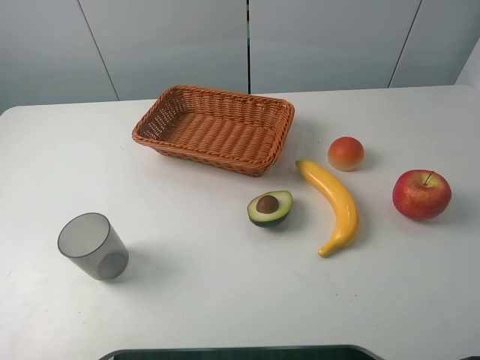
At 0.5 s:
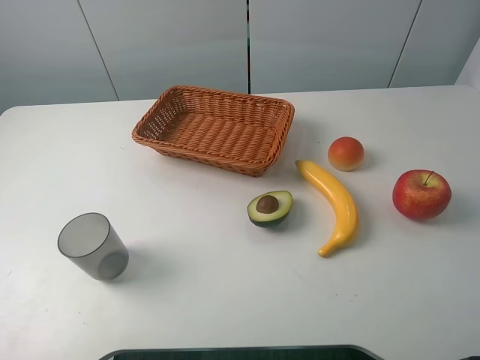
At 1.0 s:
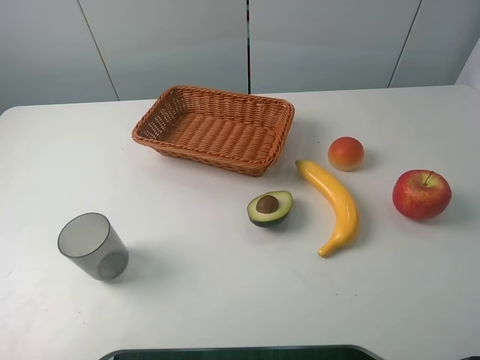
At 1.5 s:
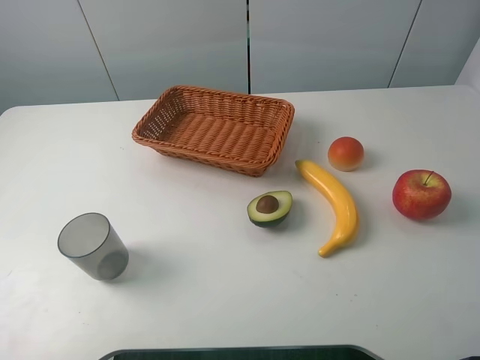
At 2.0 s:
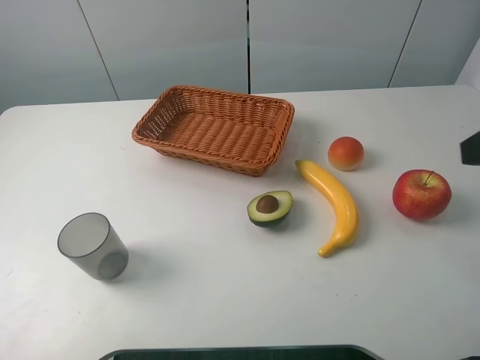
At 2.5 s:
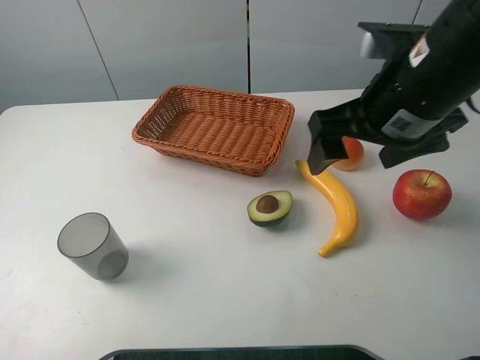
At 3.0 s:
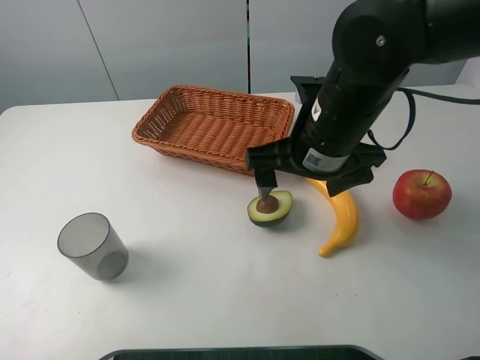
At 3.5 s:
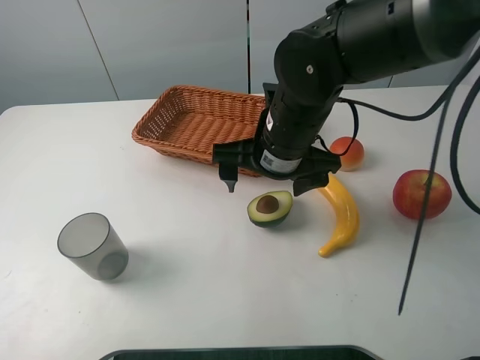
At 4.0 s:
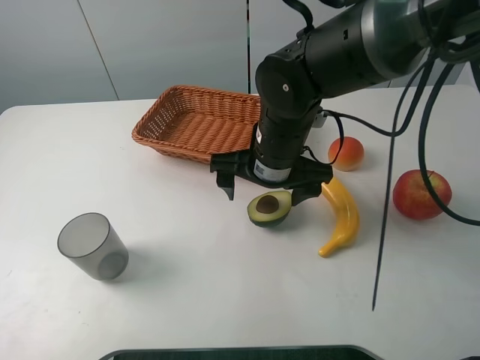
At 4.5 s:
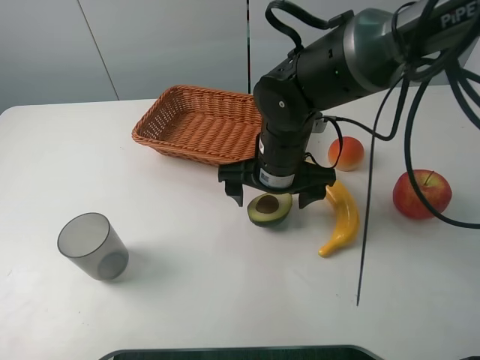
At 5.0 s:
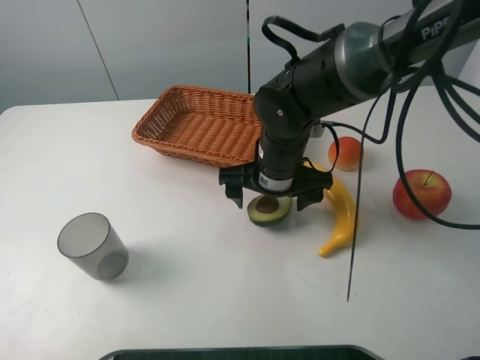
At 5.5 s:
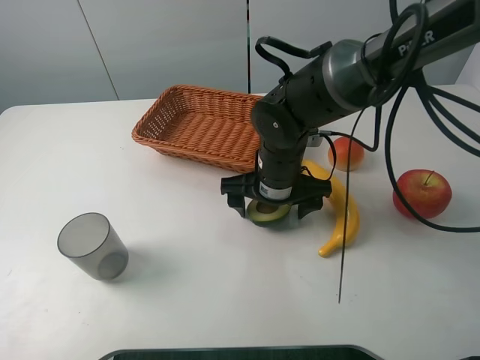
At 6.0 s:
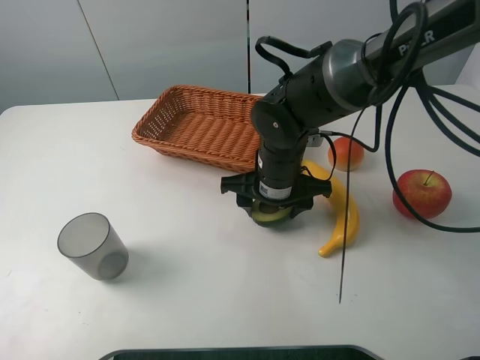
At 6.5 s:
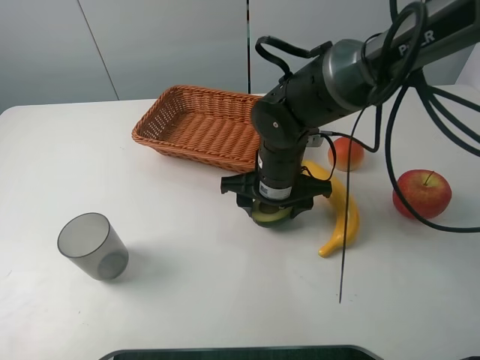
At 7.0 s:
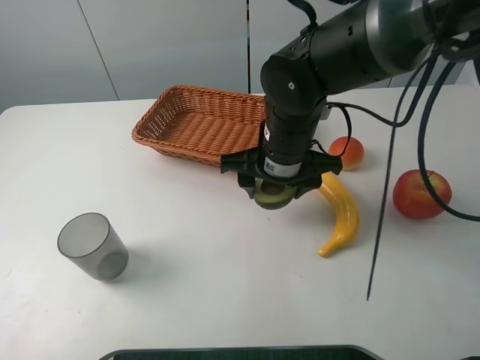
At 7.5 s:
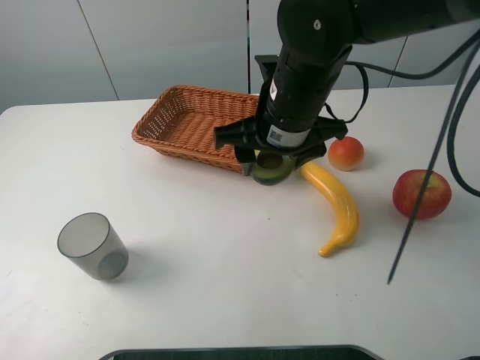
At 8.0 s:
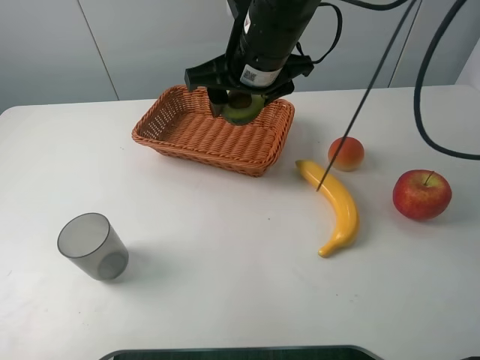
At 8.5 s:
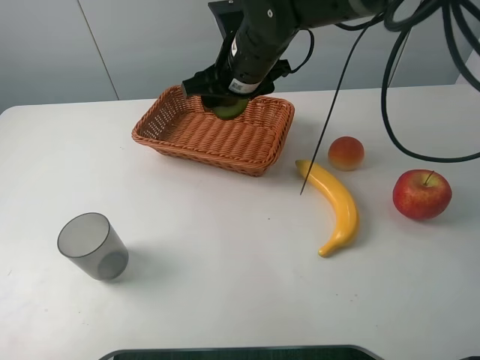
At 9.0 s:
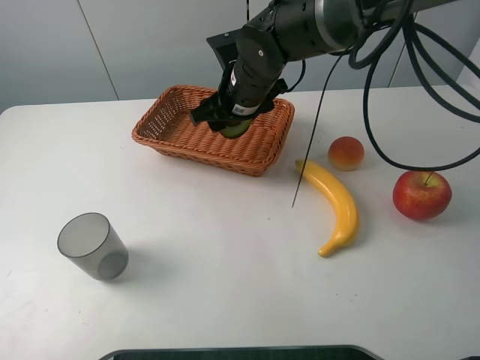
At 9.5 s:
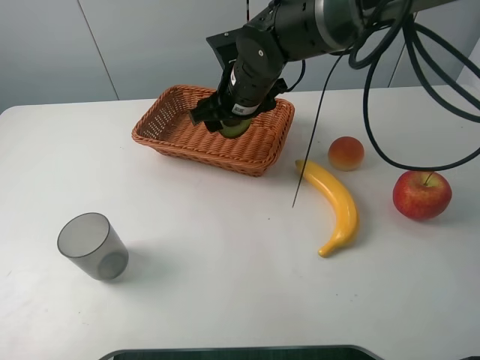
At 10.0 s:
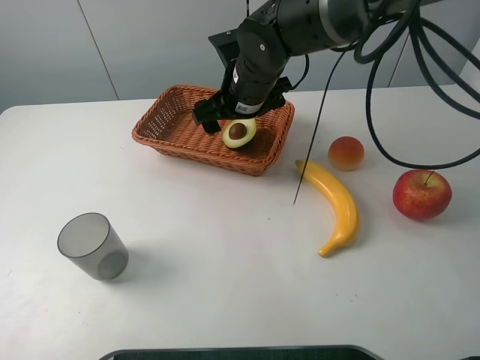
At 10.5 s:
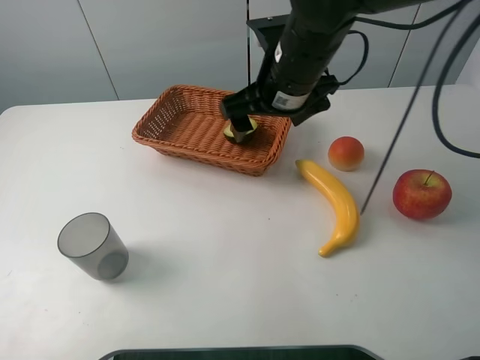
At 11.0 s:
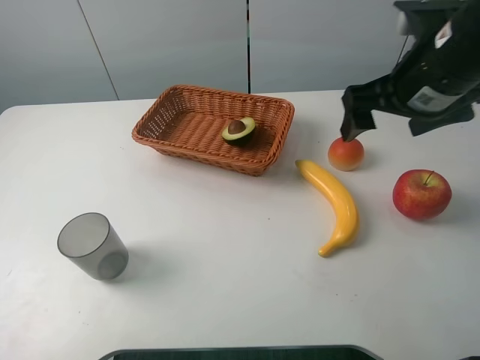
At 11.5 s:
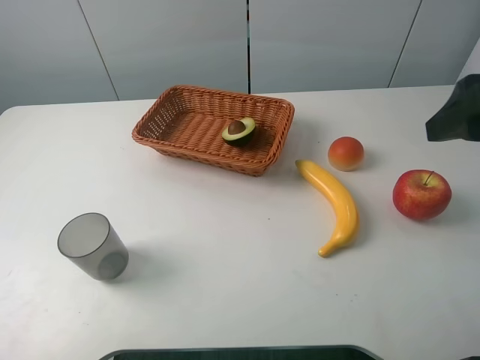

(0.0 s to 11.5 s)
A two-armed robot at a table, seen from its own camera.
Task of the whole recording: randomly pick up an item from the table and put it in the basket.
Step, 0.0 s - 6.0 s: Grasp the avocado with the right gripper.
Step, 6.5 s - 10.0 s: Place the avocado into the basket with the right gripper.
2.0 s - 4.0 s: The right gripper moves to the left, downward and forward, approximately 30 cm.
4.0 s - 6.0 s: The right gripper goes about 5 cm downward, and closes up.
6.0 s - 7.5 s: The right gripper is displaced upward by some 10 cm.
7.5 s - 9.5 s: The right gripper is displaced forward by some 10 cm, and opens up.
9.5 s - 11.5 s: The right gripper goes approximately 35 cm to the right, backward and upward.

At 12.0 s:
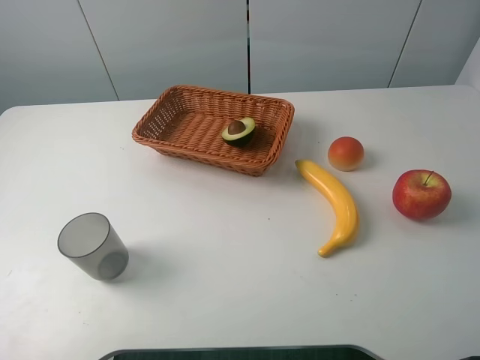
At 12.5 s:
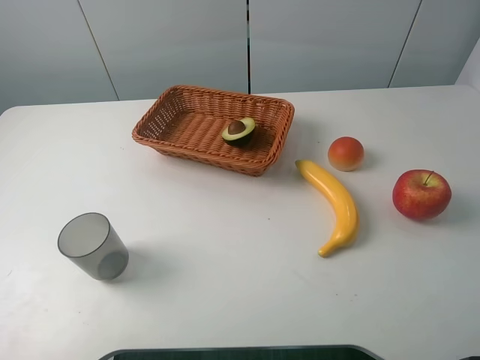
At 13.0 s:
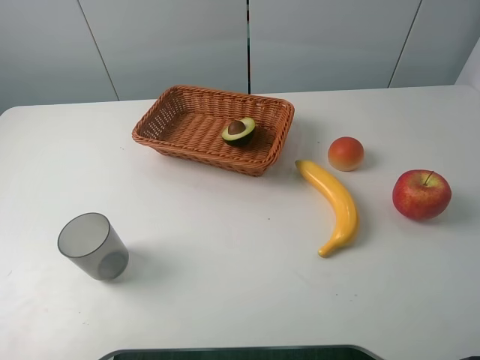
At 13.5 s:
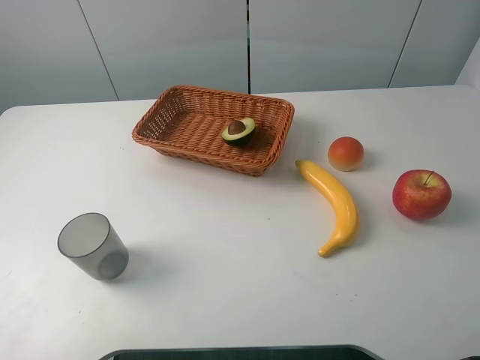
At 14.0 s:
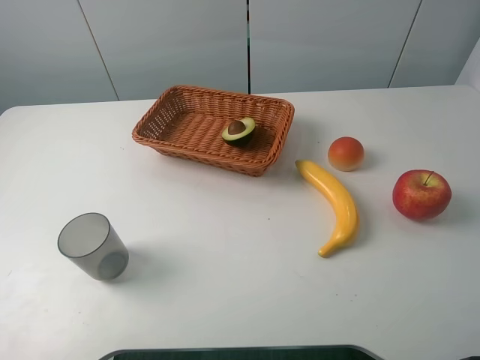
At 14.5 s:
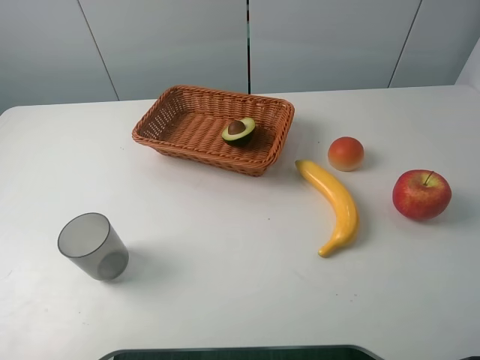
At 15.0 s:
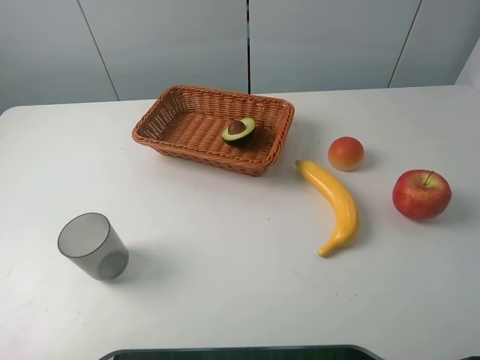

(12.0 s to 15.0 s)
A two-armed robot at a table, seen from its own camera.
Task of the whole recording: randomly pick up an item from the table and put it in the basket.
13.5 s - 15.0 s: Both grippers stay about where they are.
